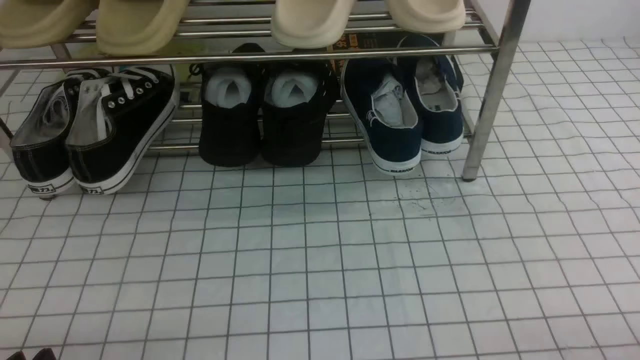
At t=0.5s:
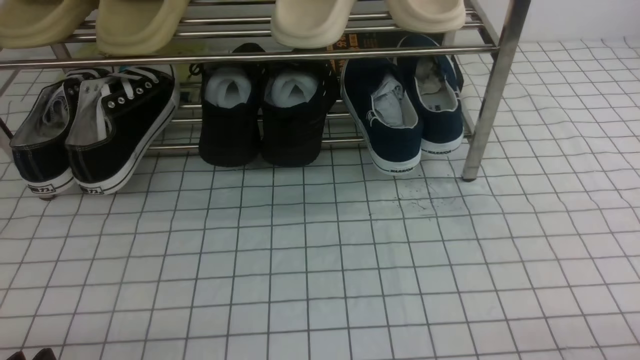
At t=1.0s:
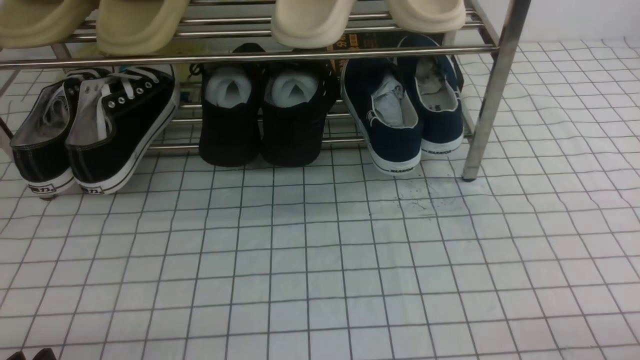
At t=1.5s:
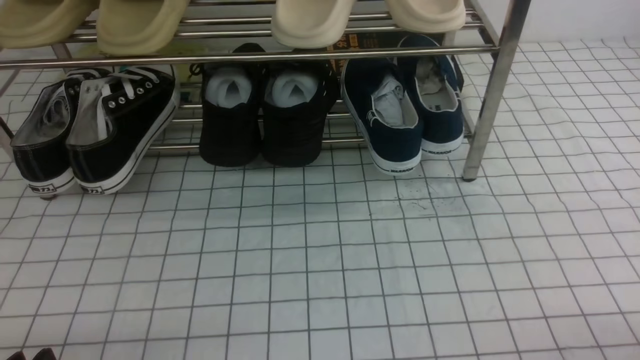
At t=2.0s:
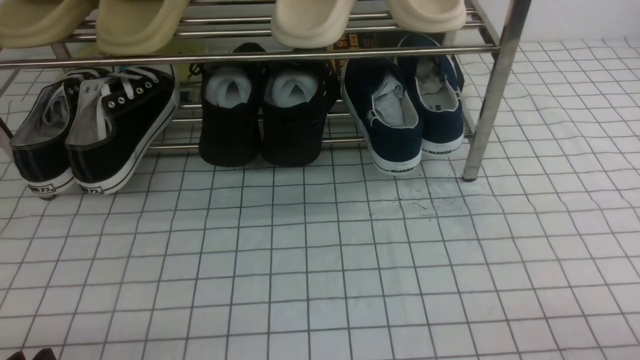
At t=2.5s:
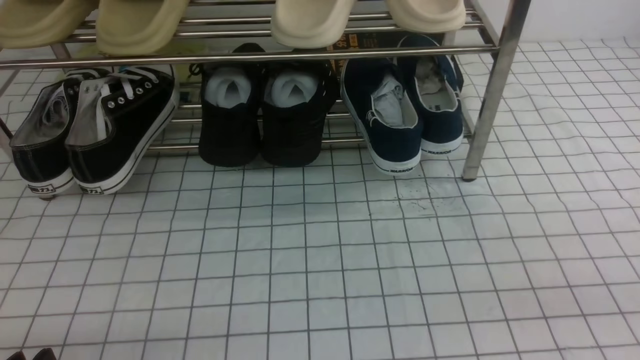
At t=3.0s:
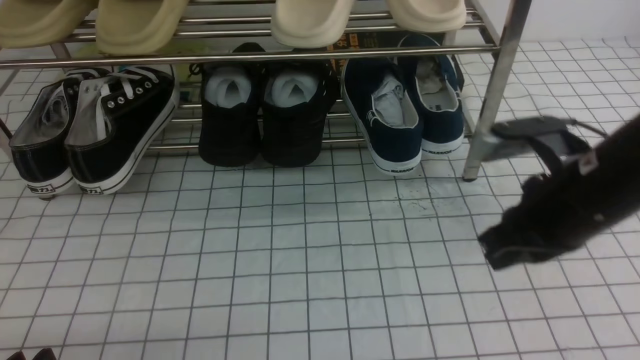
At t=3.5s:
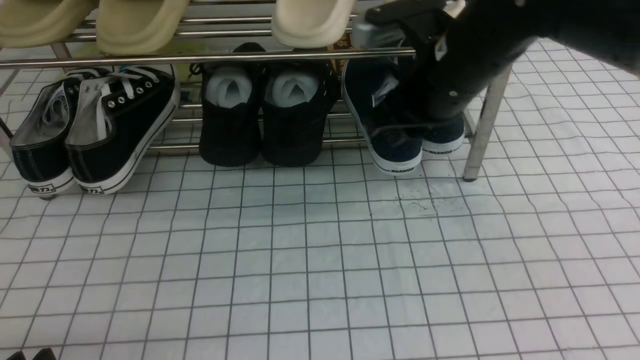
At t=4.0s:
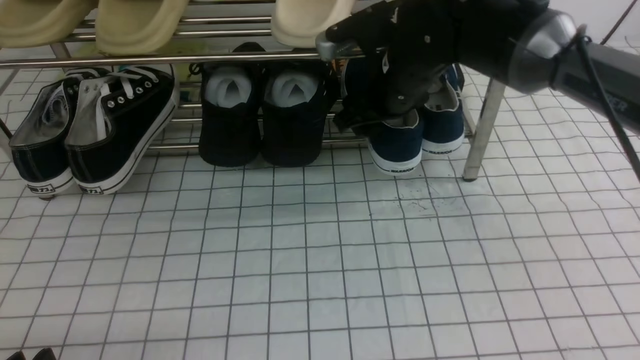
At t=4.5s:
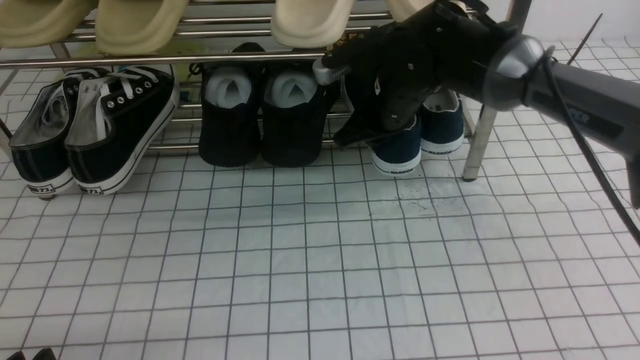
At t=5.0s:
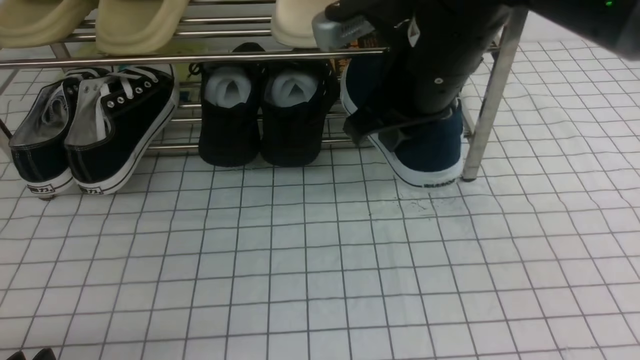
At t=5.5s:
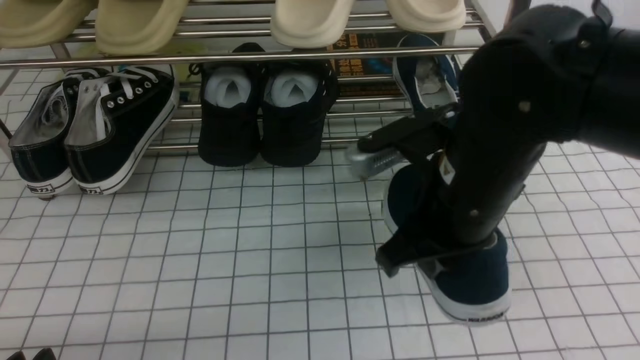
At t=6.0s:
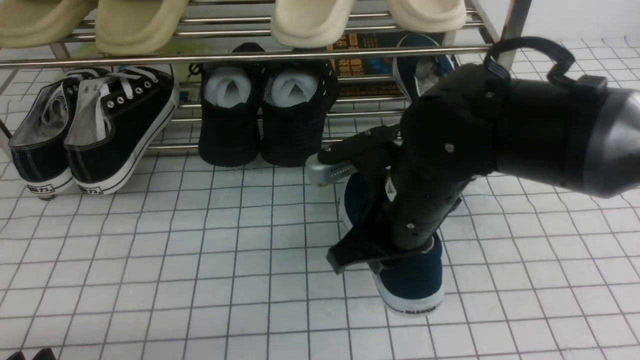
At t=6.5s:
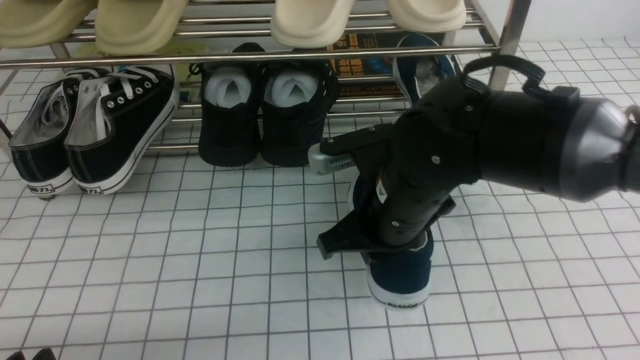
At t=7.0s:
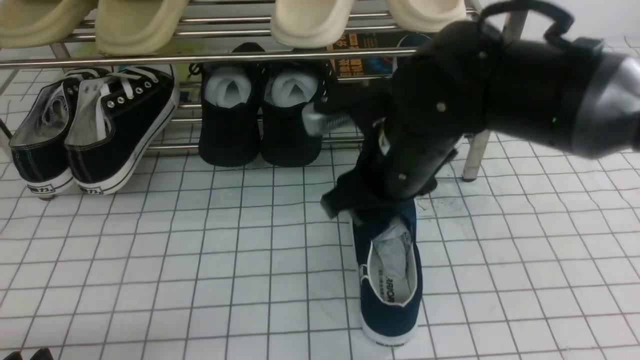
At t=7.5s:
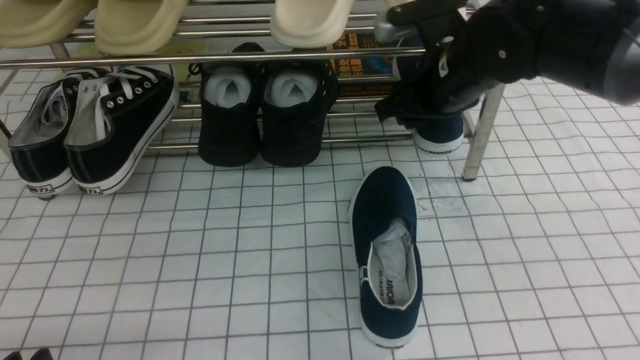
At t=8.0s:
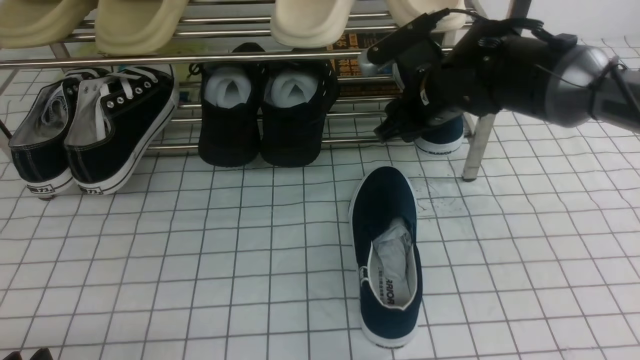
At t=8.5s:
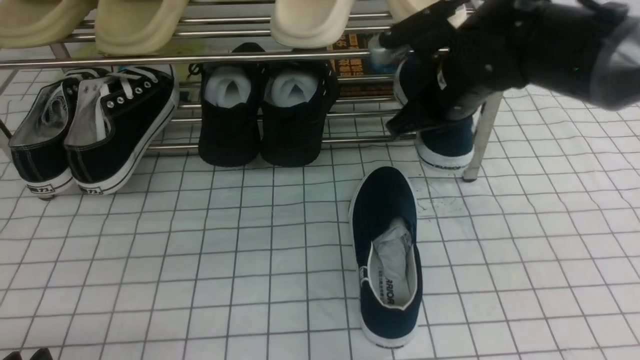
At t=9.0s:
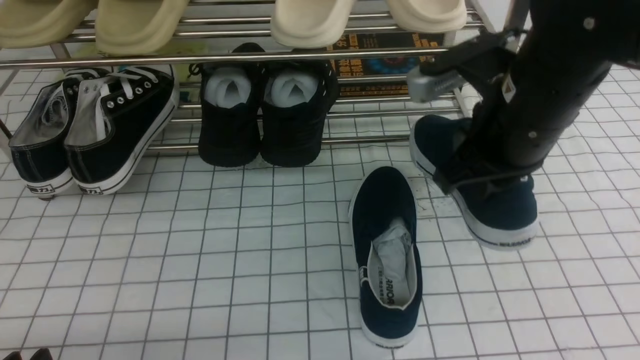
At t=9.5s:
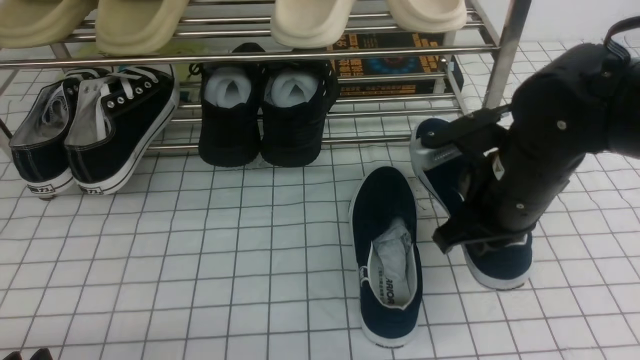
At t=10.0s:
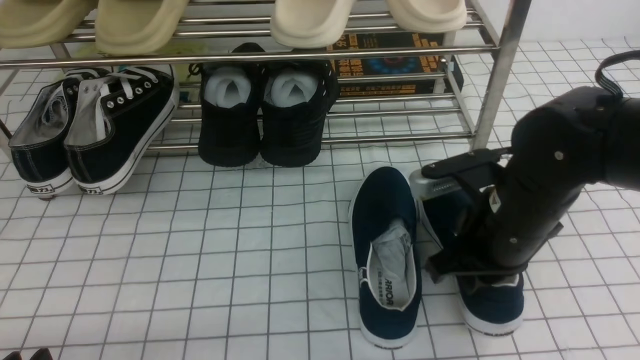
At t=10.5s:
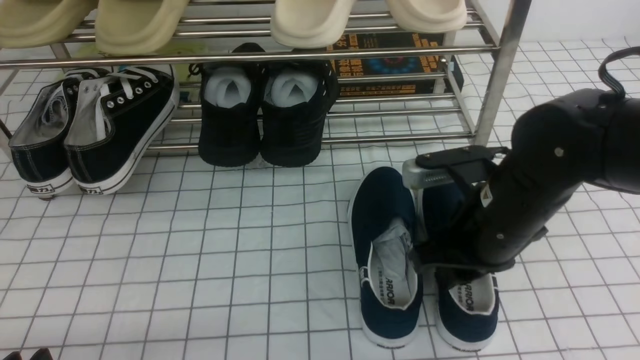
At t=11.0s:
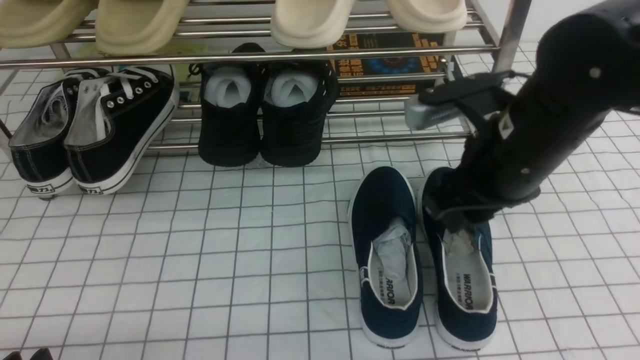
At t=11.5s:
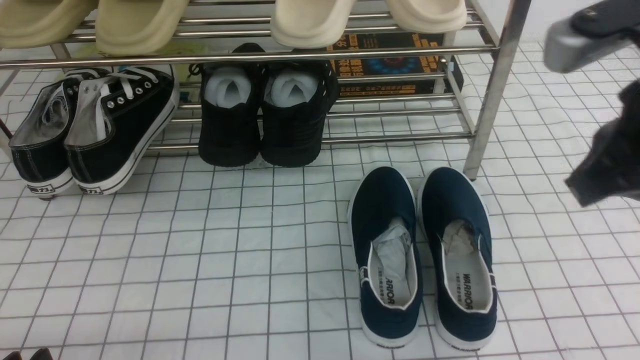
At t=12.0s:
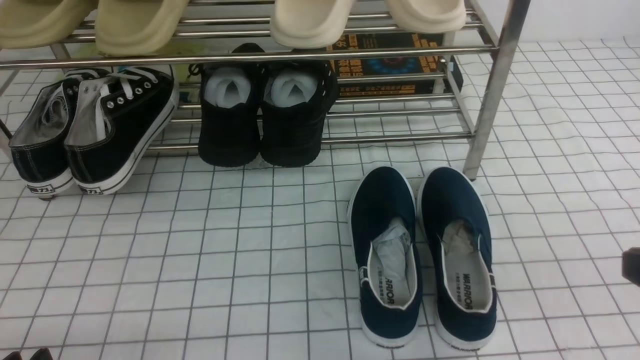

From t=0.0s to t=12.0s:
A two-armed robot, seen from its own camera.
Step, from t=0.0s to t=4.0s: use the right arm to clamp a shoe on the right side of the shoe rack.
Step, from t=4.5s to t=6.5s: use the right arm to take out the clamped shoe from the shoe rack and put it down.
Step, from t=7.0s to t=8.0s: use the right arm to clamp a shoe on the right side of the shoe rack.
Step, from t=8.5s to t=11.0s: use the right arm to take out the clamped shoe from the shoe rack and put it down.
From t=2.0s to t=4.0s: The right gripper shifts some 40 cm forward and to the left, and opens up.
From t=4.0s to t=6.0s: The right gripper is displaced backward by about 15 cm, and closes.
From t=6.0s to t=8.0s: The right gripper moves forward, approximately 15 cm, and opens.
From t=8.0s to t=10.0s: The right gripper travels backward by about 15 cm, and closes its fingers.
From t=10.0s to t=12.0s: The right gripper travels backward, to the right and upward by some 20 cm, and opens and closes again.

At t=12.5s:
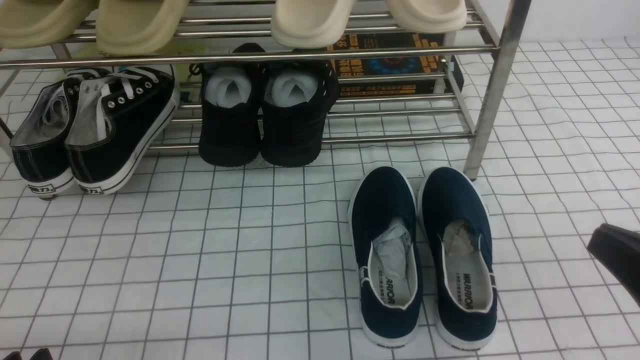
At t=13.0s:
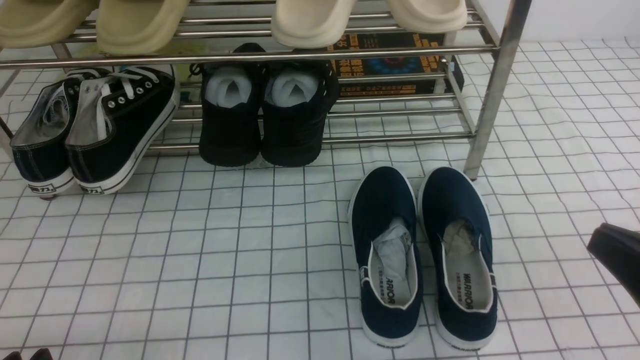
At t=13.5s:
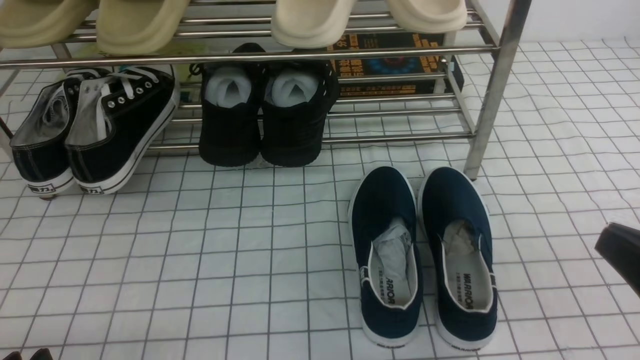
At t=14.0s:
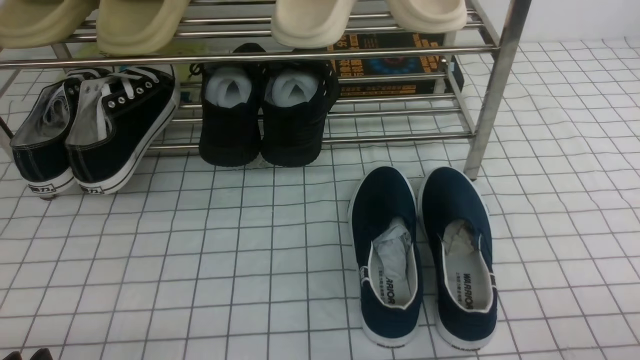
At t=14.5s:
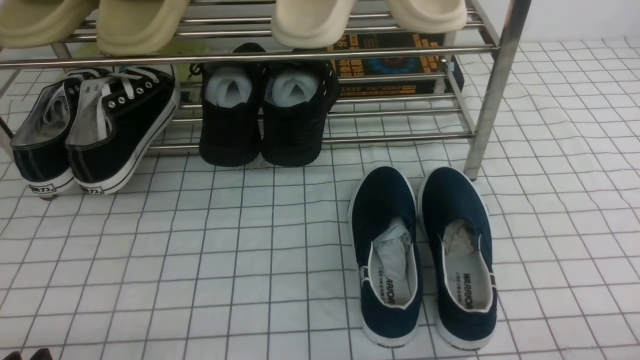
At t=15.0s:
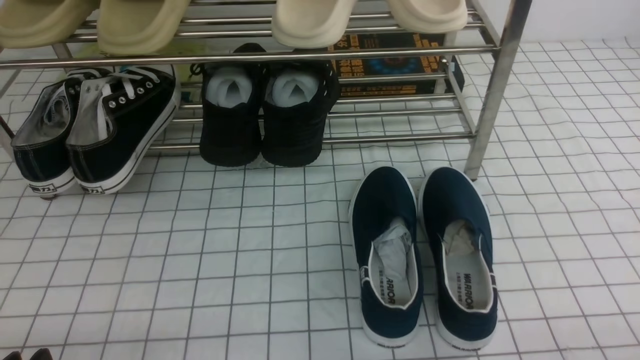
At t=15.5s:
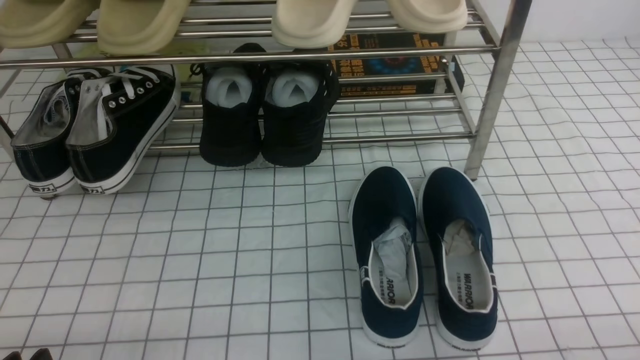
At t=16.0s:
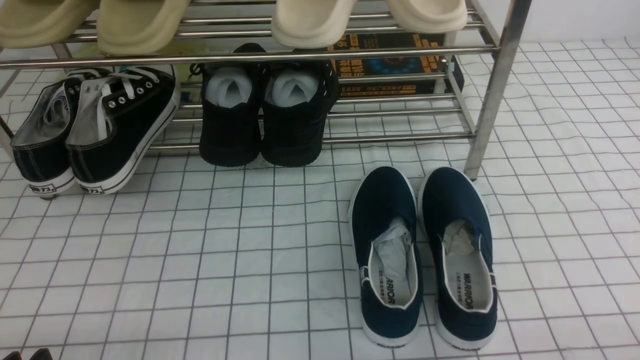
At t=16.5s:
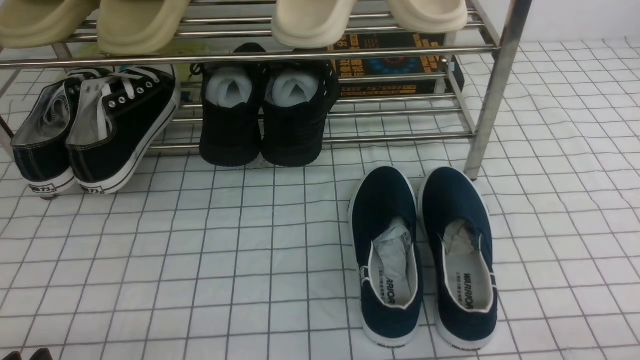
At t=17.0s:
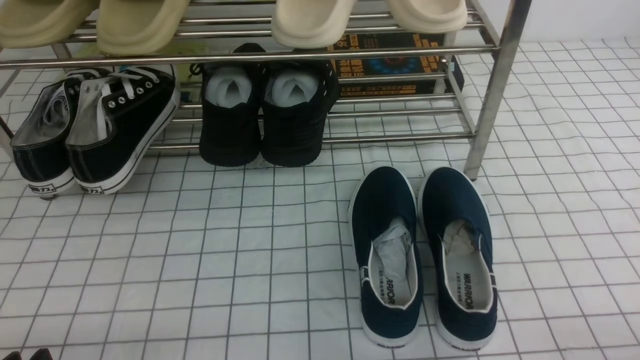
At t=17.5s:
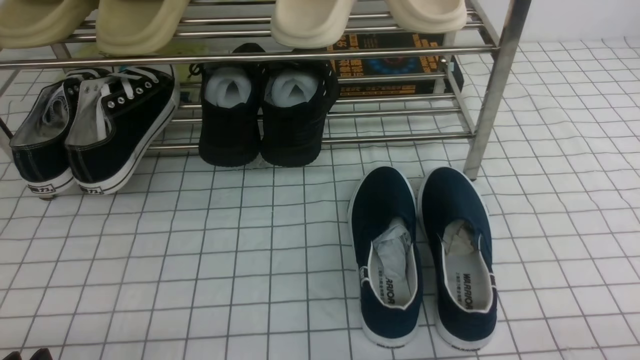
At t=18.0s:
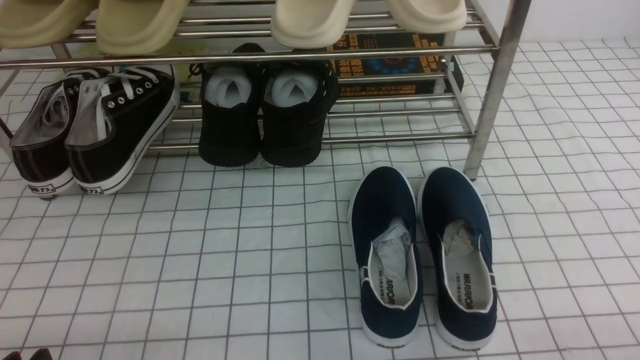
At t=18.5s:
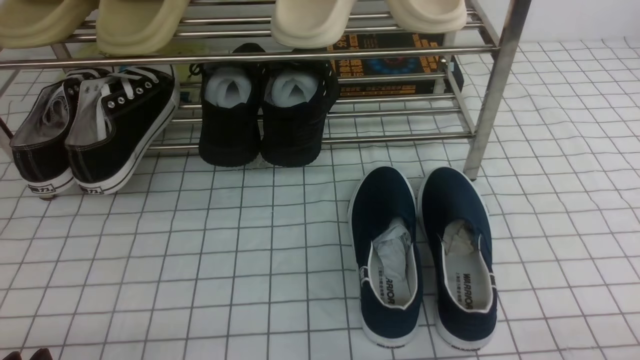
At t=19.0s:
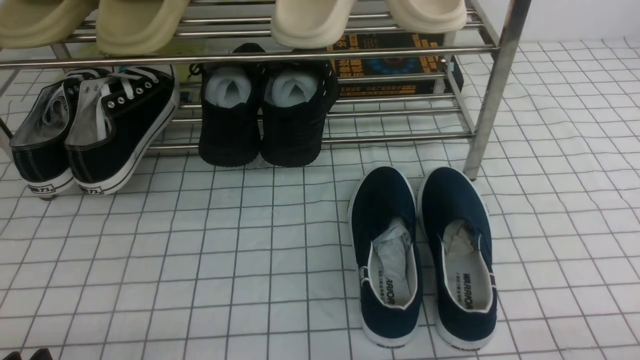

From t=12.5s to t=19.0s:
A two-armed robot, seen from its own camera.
From t=12.5s to t=14.5s: The right gripper heads downward, covering some 10 cm.
From t=17.0s to t=19.0s: Neither gripper changes place.

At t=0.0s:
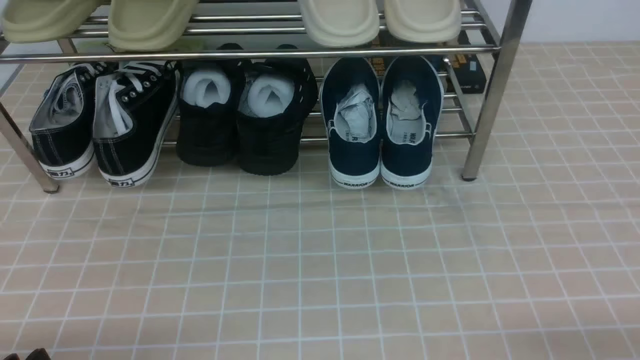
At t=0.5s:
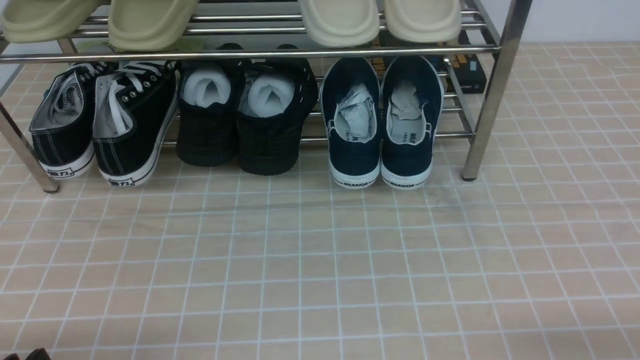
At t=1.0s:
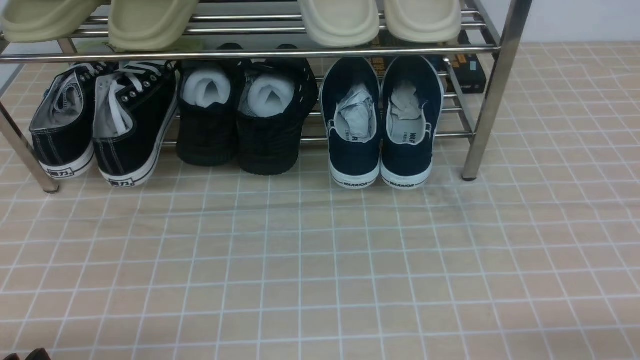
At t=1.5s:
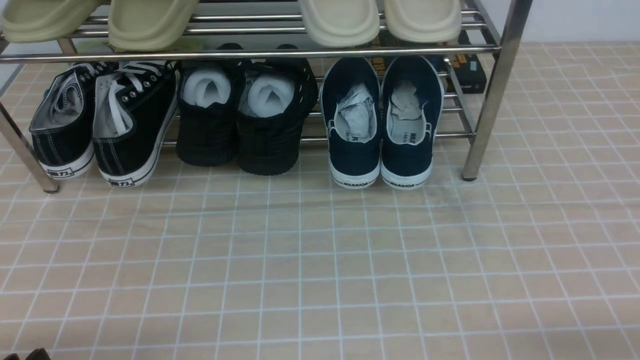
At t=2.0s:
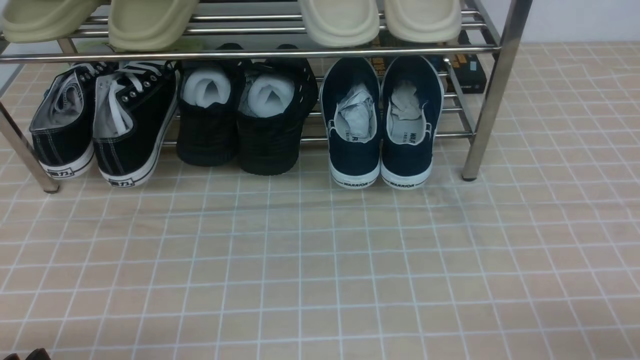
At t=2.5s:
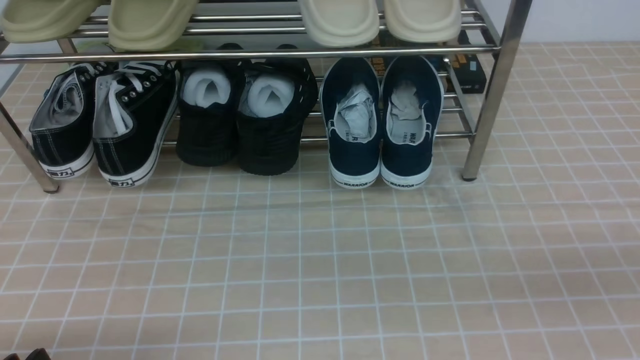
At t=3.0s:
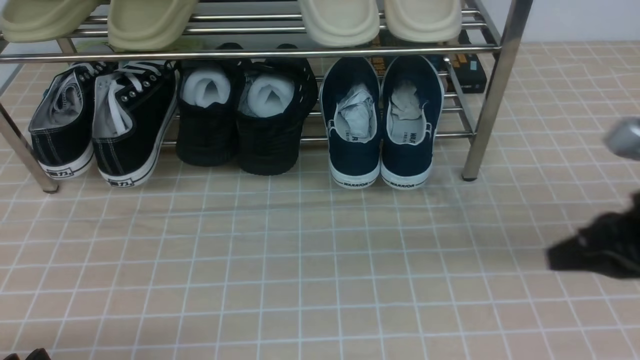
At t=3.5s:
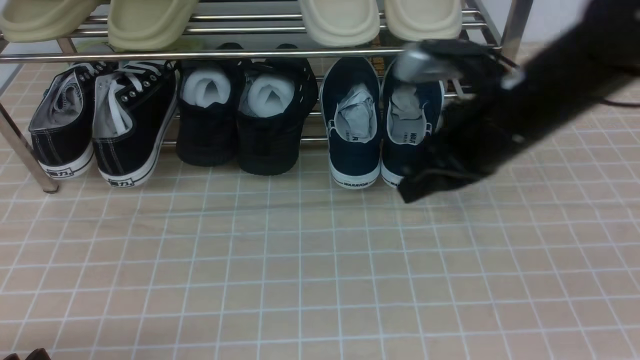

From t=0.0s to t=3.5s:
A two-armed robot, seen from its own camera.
From t=2.0s to t=3.5s: The right gripper heads forward, to the left and upward, covering roughly 35 cm, and closes.
